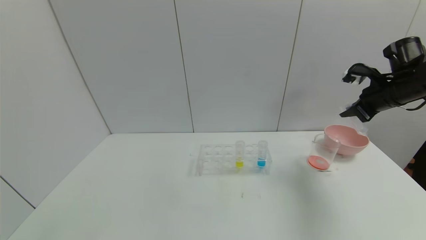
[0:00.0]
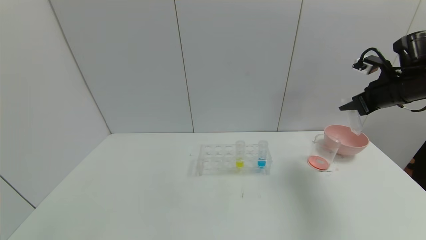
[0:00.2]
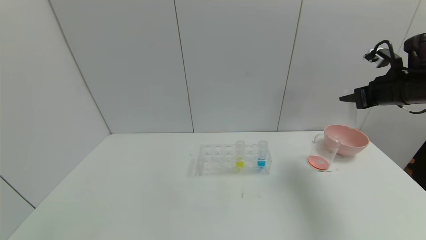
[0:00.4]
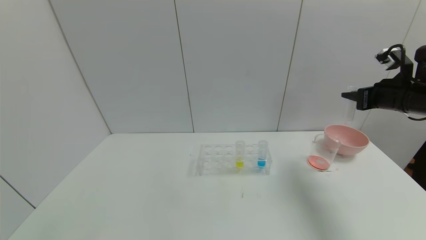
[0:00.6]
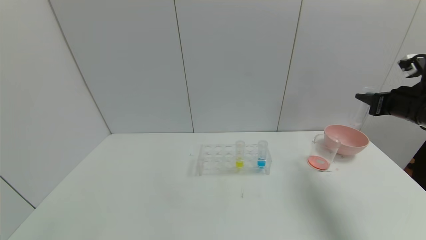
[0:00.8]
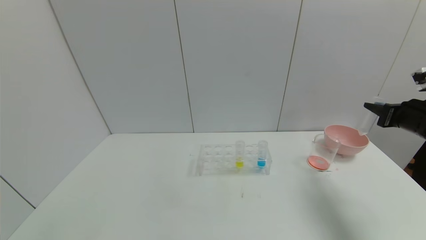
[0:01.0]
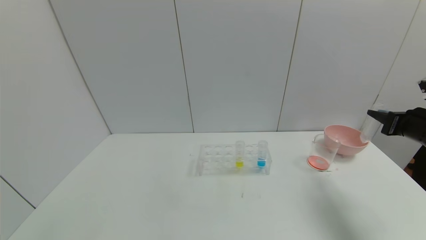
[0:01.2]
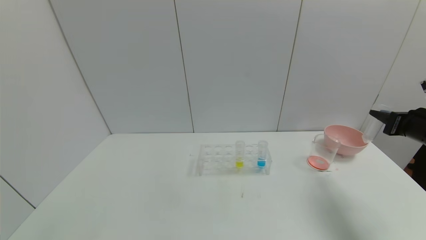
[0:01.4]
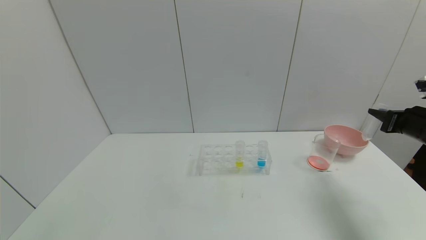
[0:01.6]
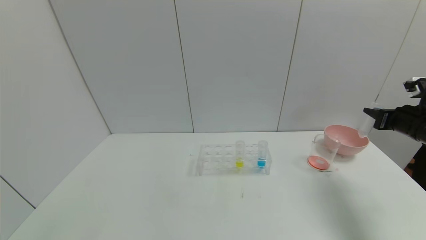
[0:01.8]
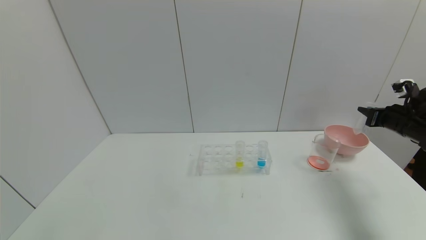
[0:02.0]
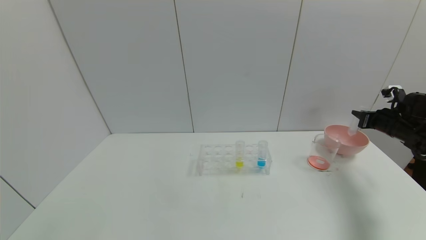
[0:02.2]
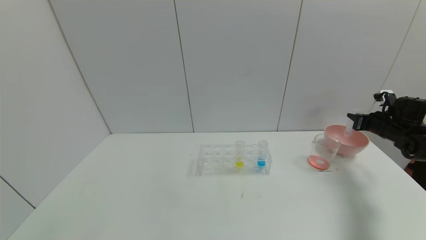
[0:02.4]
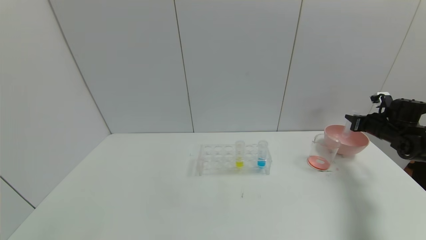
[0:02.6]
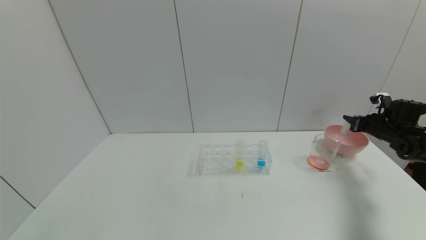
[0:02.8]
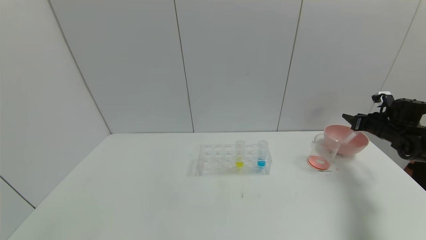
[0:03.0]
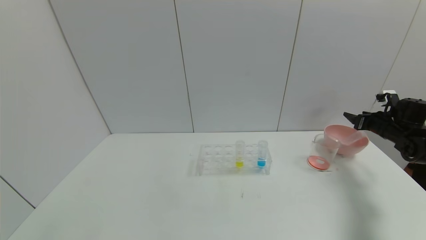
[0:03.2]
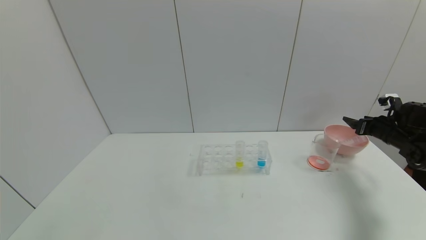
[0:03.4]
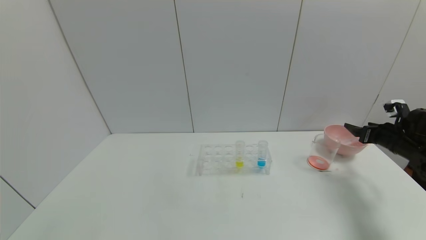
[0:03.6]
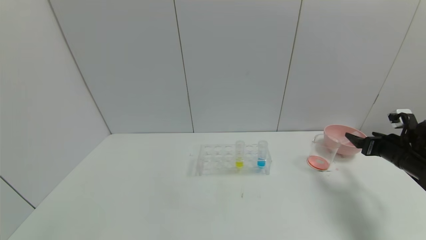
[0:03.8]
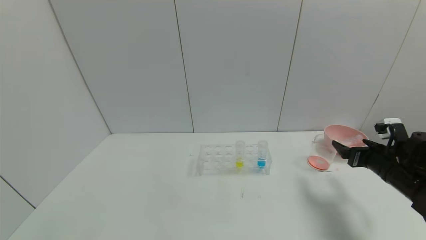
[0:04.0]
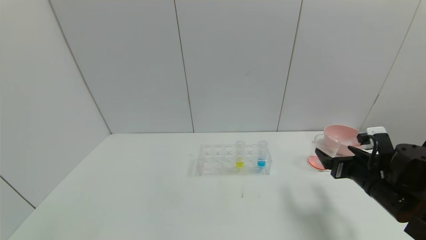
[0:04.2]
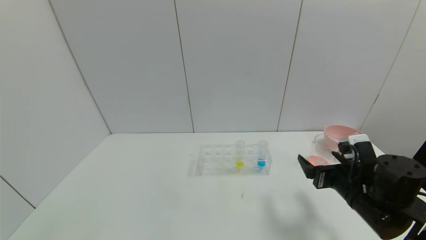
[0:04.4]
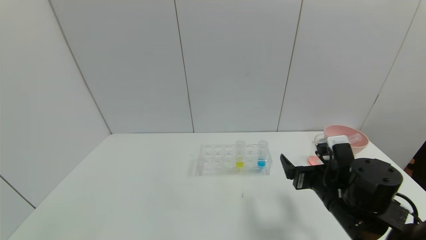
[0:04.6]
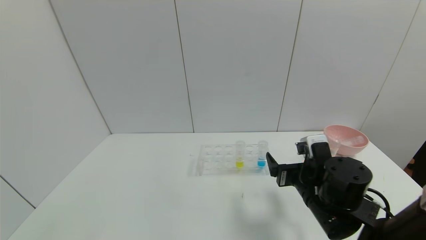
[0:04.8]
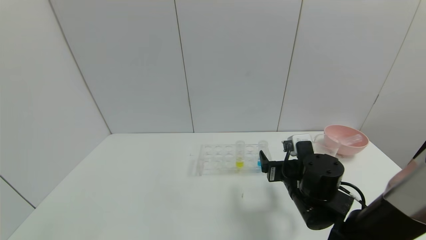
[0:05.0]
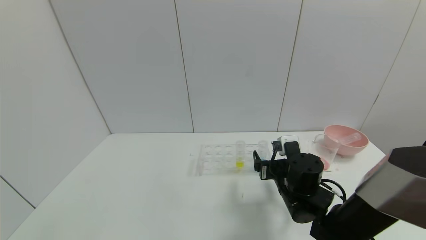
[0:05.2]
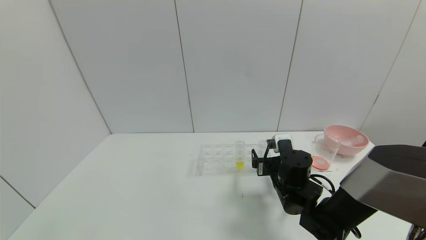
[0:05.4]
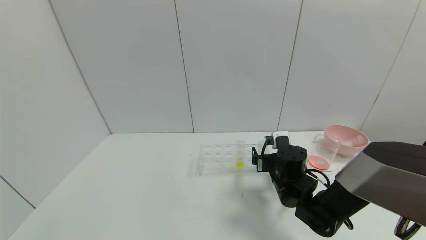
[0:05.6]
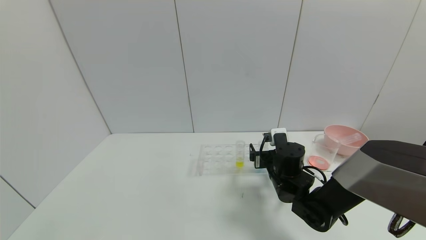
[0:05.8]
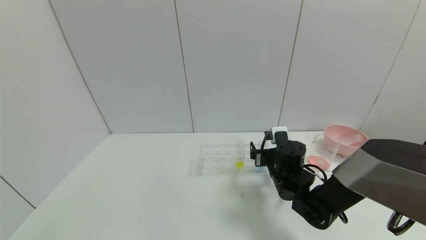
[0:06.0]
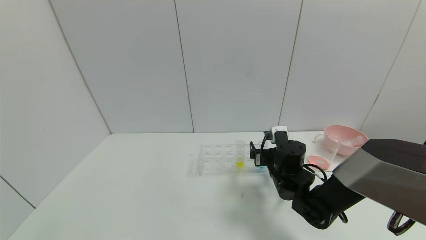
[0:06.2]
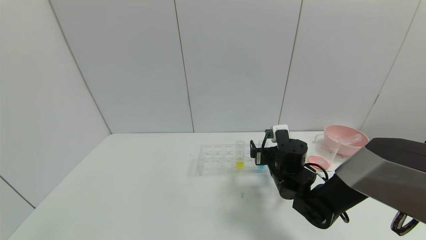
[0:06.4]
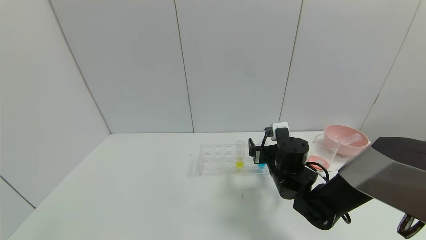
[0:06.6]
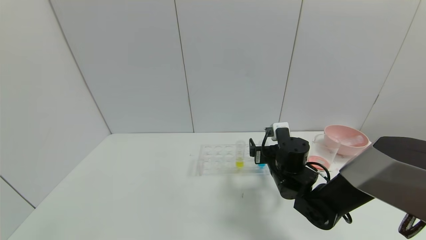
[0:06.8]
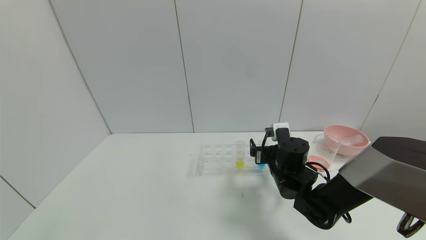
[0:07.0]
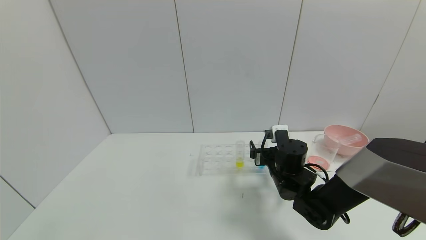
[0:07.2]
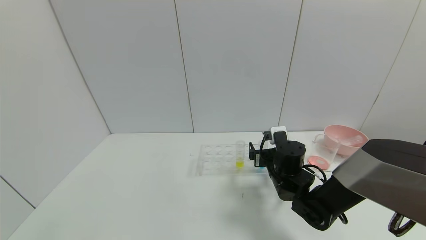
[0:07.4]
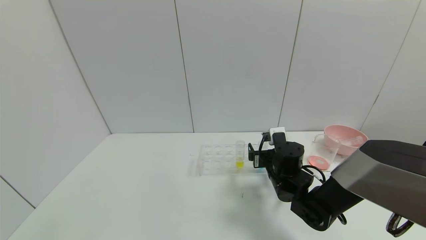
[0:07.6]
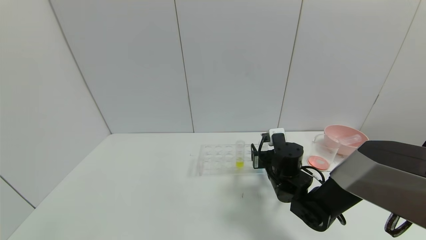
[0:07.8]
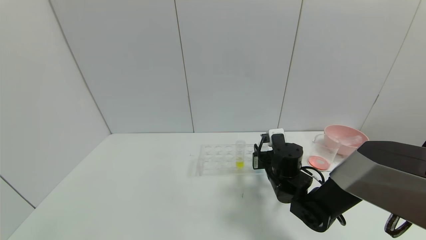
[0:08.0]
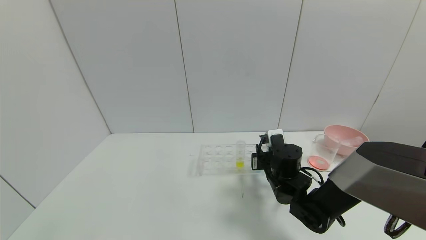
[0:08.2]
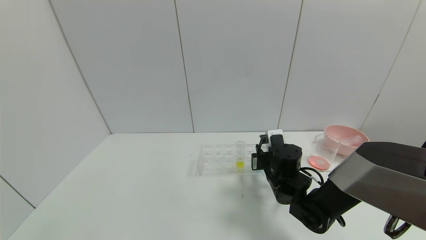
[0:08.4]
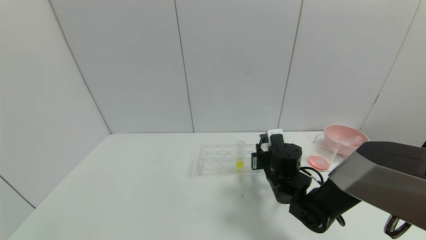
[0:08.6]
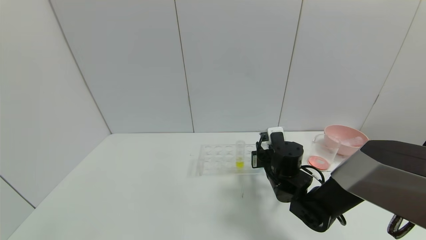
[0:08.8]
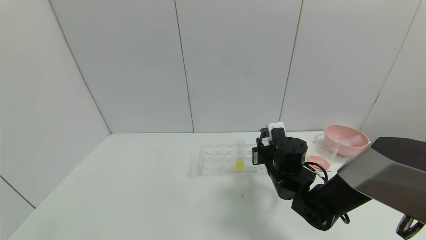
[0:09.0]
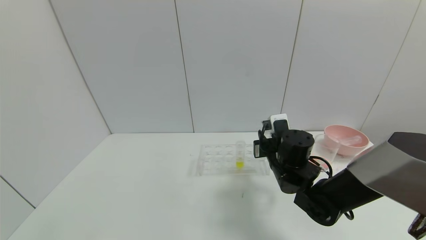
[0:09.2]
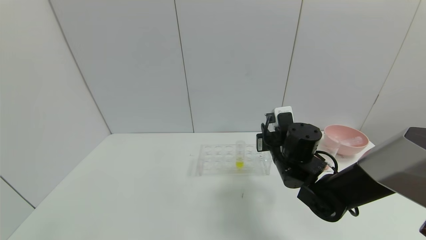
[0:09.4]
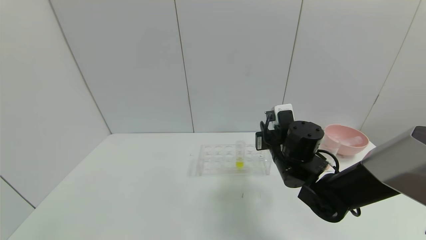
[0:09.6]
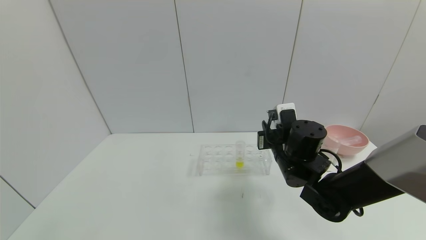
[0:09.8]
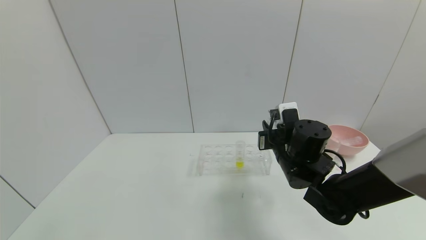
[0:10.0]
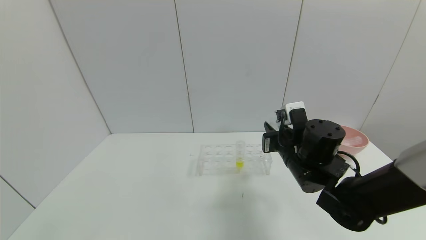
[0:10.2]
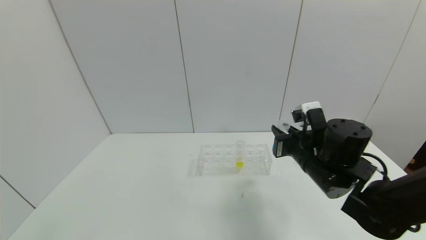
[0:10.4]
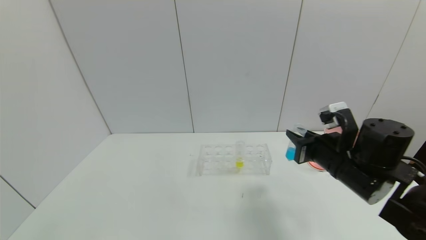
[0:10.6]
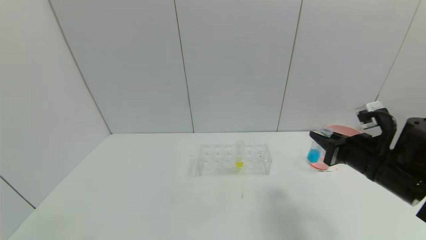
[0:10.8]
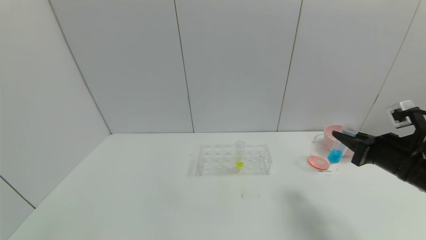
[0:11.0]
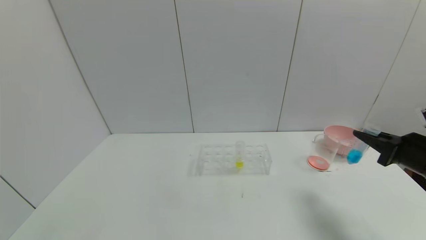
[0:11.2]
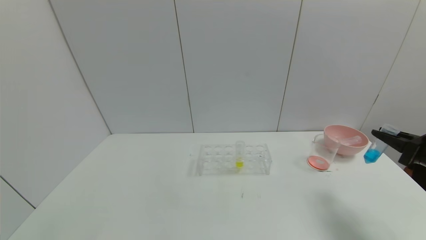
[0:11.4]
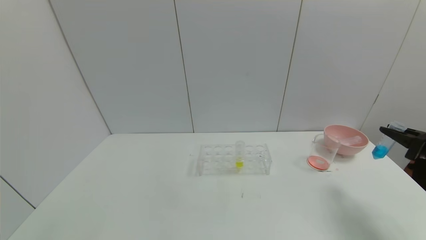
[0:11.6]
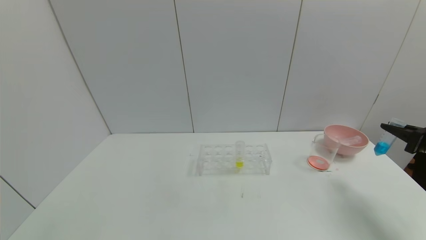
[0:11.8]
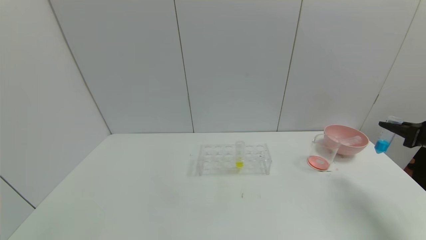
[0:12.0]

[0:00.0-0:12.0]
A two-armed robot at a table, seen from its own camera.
Task of the whole recording: pick up the test tube with red pigment and the test tube with blue pigment by grippers and pour them into the container.
Step, 0:00.0 to 0:03.4: Place the test tube into the bowl with the right gripper.
Step, 0:03.6 to 0:08.2: Grasp the blue reagent with the right gripper.
0:00.0 to 0:01.6: The right gripper goes about 10 cm backward and downward.
0:01.6 to 0:03.0: The right gripper heads forward and downward, covering roughly 15 cm, and opens.
0:03.0 to 0:04.4: The right gripper heads to the left and backward, covering roughly 30 cm, and opens.
0:04.4 to 0:06.0: The right gripper moves forward and to the left, approximately 15 cm.
0:06.0 to 0:07.6: The grippers stay close to where they were, moving slightly.
0:07.6 to 0:09.0: The right gripper closes.
0:09.0 to 0:10.4: The right gripper heads upward and backward, covering approximately 10 cm.
0:10.4 to 0:12.0: The right gripper goes about 30 cm to the right.

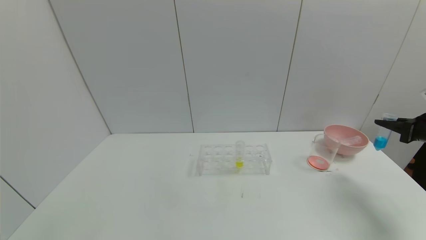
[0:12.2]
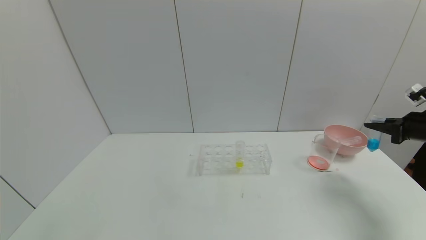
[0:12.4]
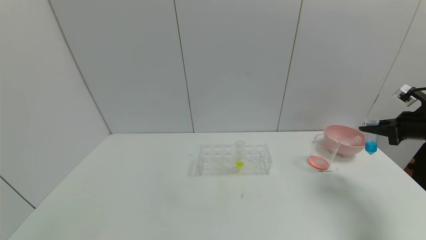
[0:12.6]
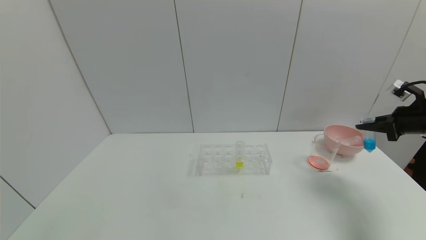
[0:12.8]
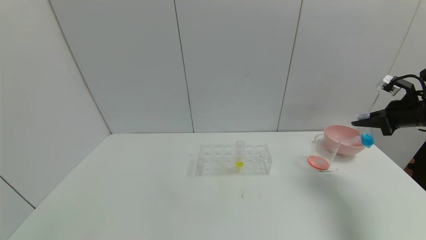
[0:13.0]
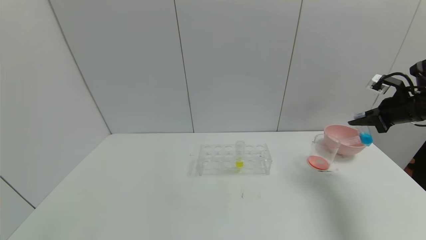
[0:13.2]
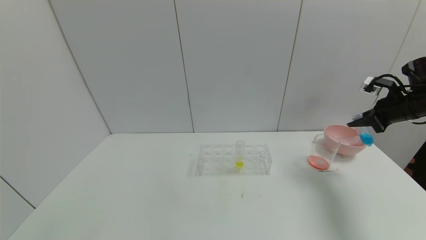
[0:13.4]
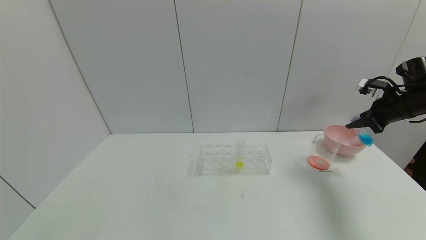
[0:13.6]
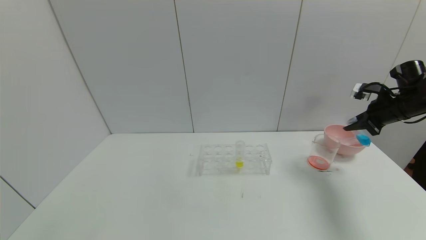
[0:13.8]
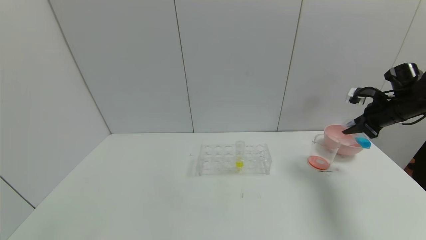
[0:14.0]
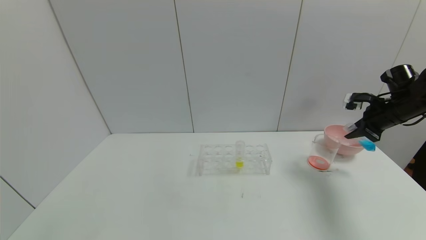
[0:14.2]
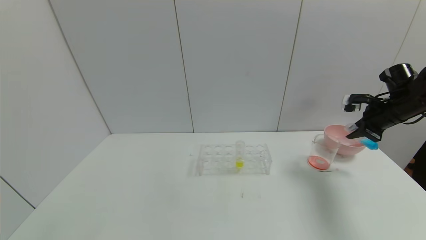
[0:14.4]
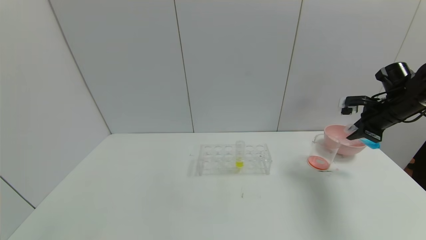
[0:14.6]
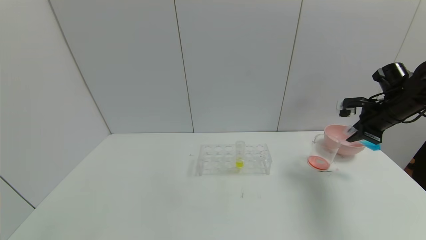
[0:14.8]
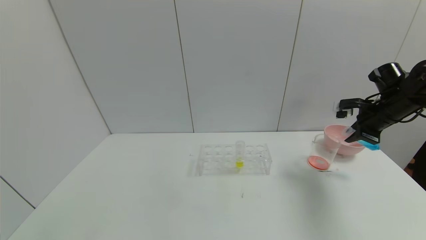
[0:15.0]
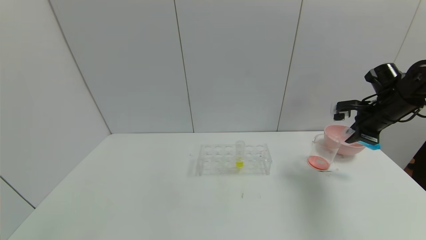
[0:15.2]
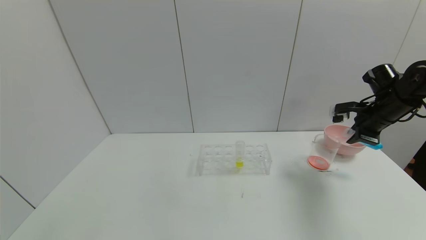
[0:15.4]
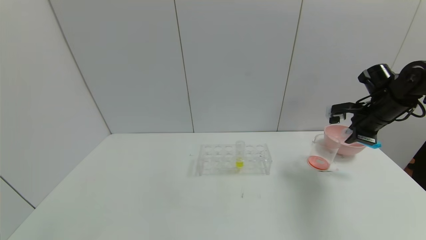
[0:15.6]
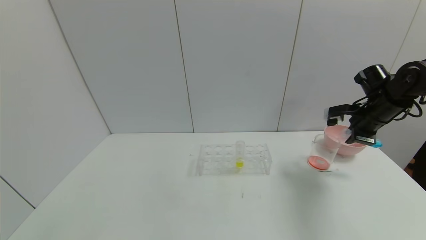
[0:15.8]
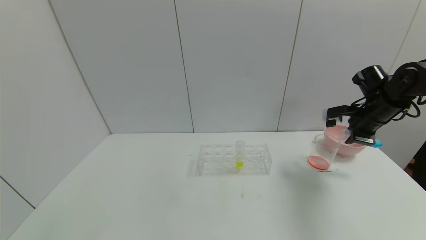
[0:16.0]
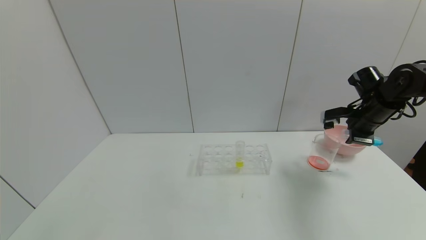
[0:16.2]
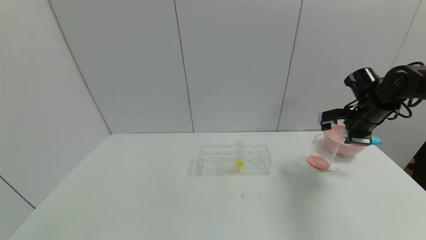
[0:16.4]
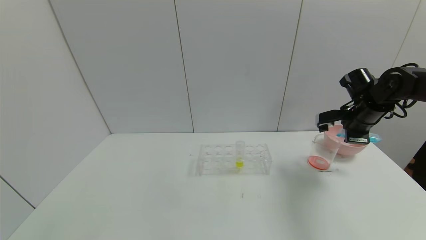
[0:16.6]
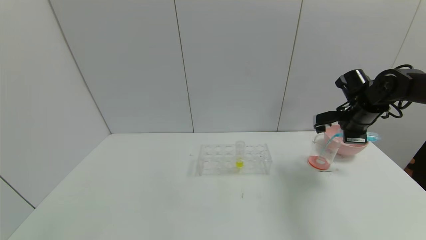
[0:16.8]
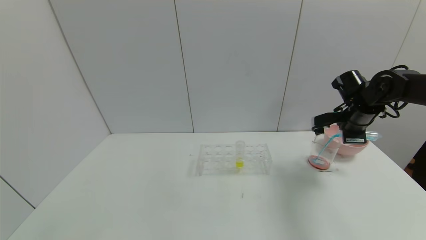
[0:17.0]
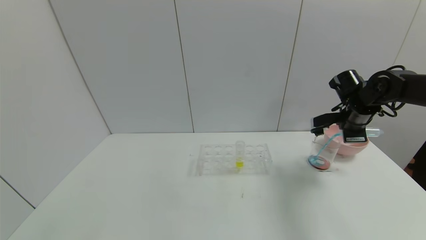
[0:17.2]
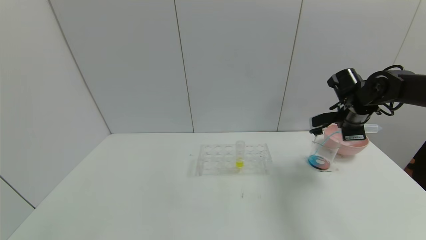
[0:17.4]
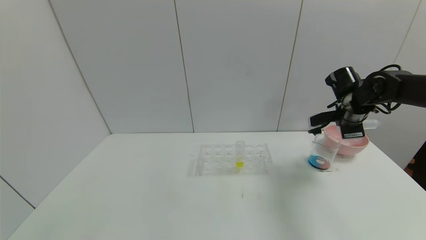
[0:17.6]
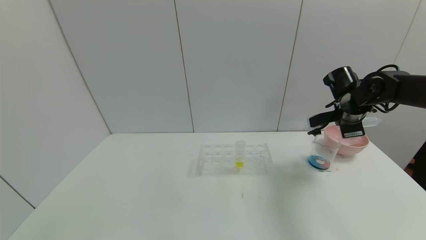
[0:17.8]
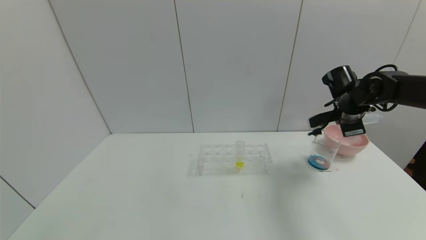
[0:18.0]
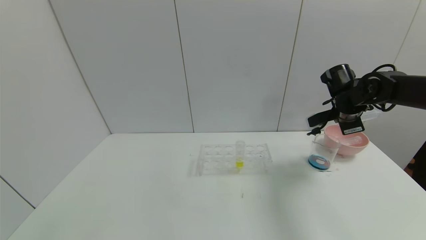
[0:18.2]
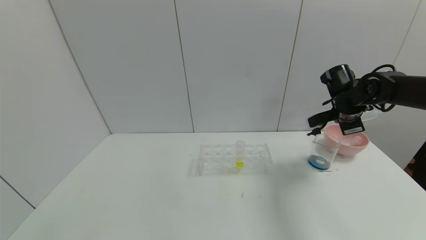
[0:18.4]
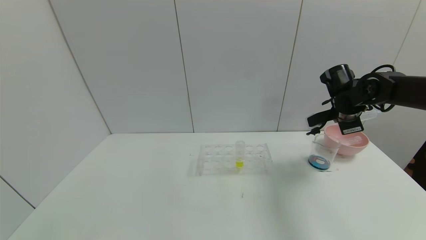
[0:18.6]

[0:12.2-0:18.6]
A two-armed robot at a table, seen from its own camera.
Task of the whole recording: pick up the test tube with red pigment and the test tube with blue pigment by grippers and pour them into the container.
Step, 0:12.2 to 0:17.8: Pour the blue reagent into the graduated cylinder with the right gripper.
0:12.2 to 0:13.8: The right gripper is displaced forward and to the left by about 10 cm.
0:13.8 to 0:15.4: The right gripper shifts about 5 cm to the left.
0:15.4 to 0:17.0: The right gripper shifts by about 5 cm.
